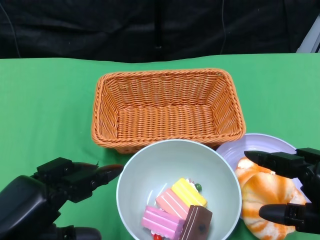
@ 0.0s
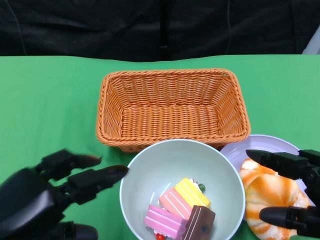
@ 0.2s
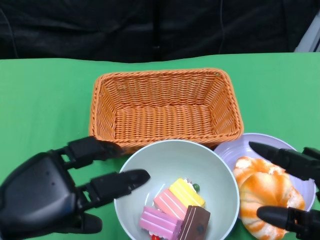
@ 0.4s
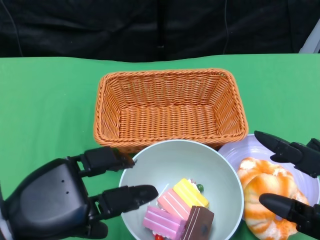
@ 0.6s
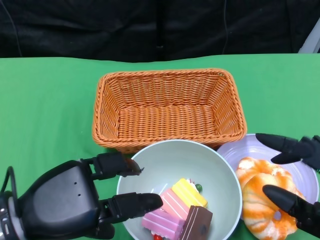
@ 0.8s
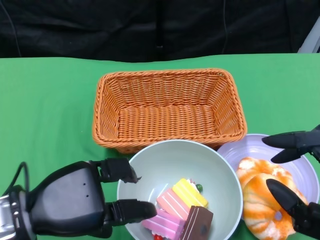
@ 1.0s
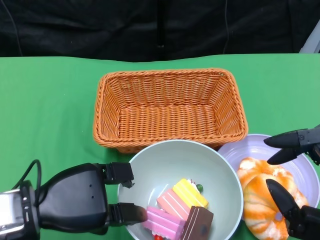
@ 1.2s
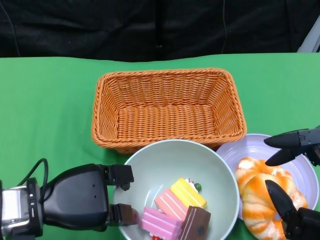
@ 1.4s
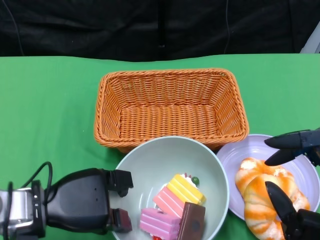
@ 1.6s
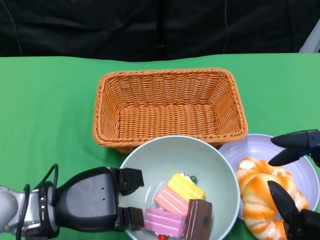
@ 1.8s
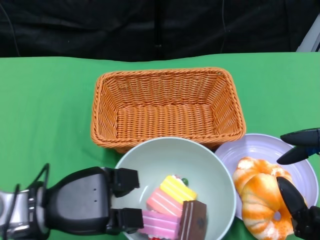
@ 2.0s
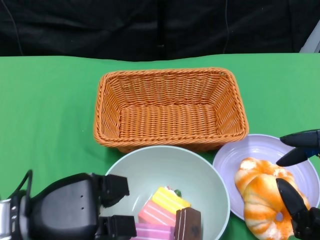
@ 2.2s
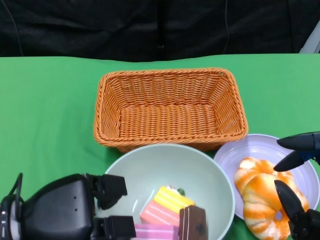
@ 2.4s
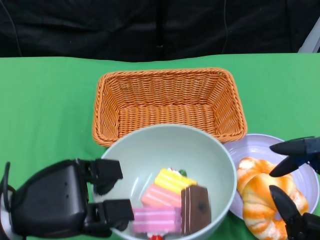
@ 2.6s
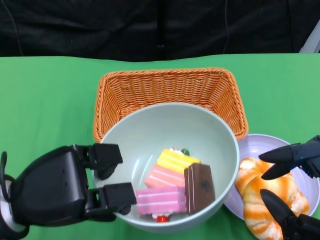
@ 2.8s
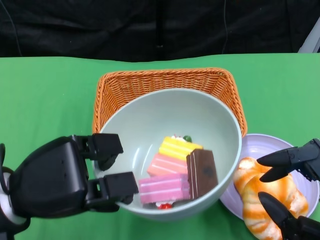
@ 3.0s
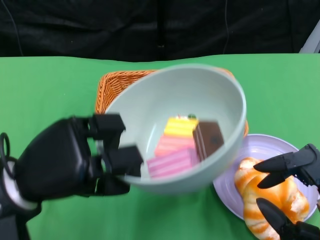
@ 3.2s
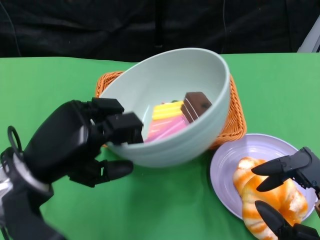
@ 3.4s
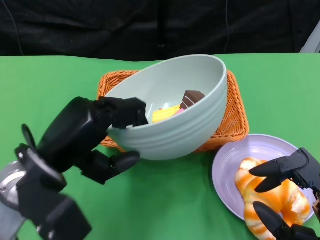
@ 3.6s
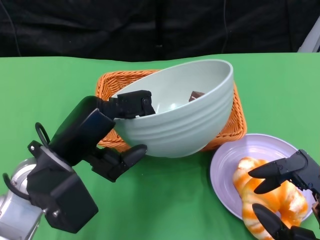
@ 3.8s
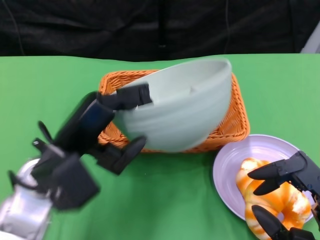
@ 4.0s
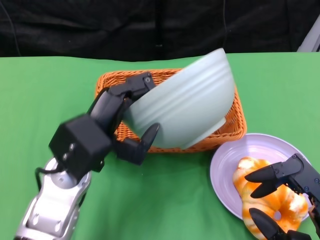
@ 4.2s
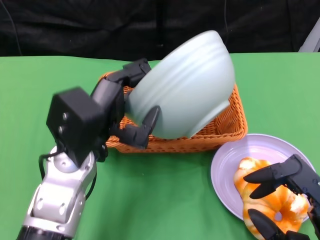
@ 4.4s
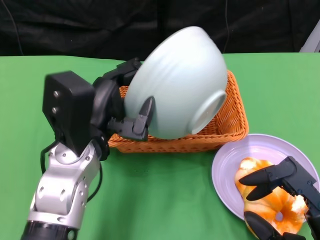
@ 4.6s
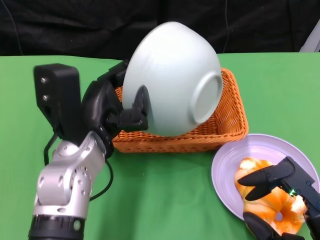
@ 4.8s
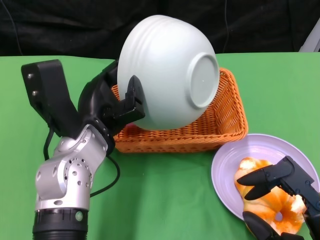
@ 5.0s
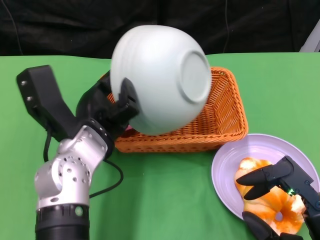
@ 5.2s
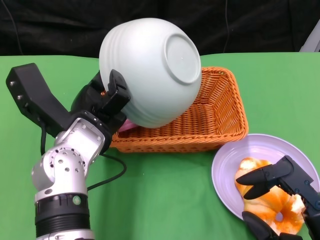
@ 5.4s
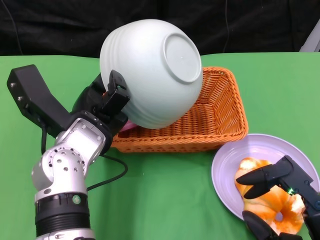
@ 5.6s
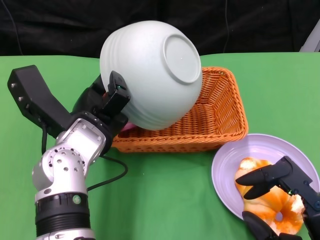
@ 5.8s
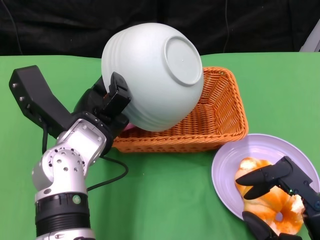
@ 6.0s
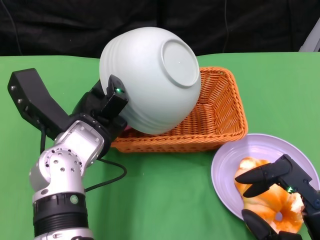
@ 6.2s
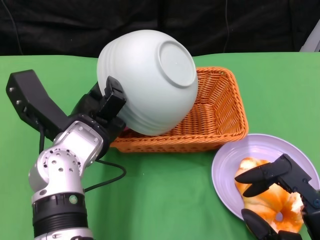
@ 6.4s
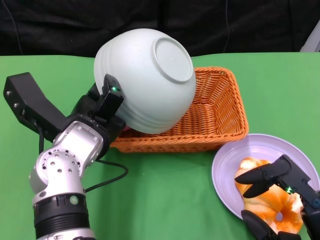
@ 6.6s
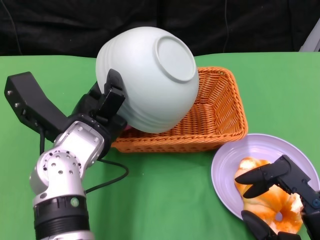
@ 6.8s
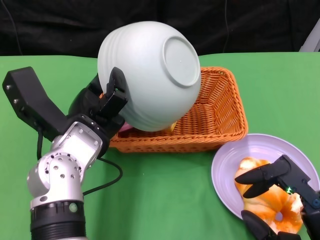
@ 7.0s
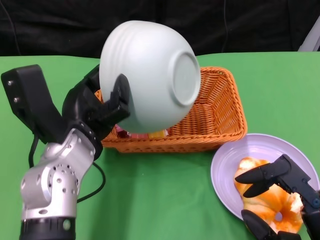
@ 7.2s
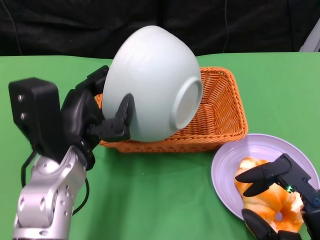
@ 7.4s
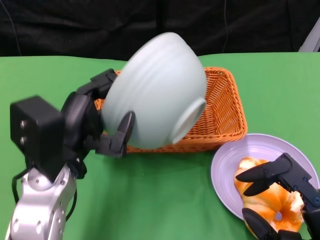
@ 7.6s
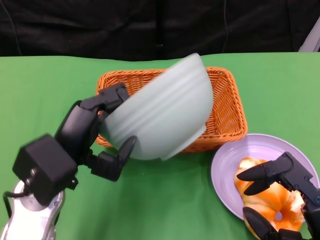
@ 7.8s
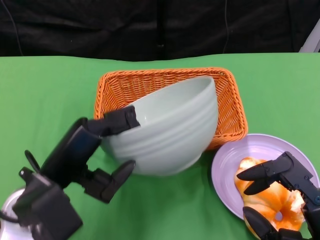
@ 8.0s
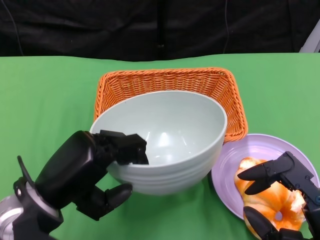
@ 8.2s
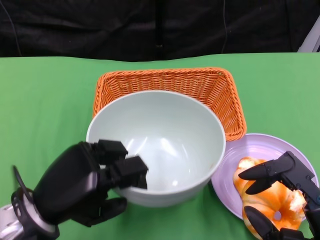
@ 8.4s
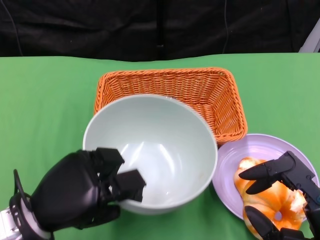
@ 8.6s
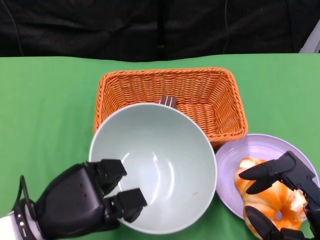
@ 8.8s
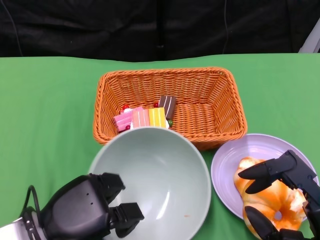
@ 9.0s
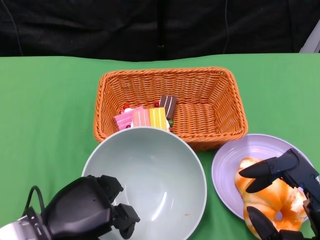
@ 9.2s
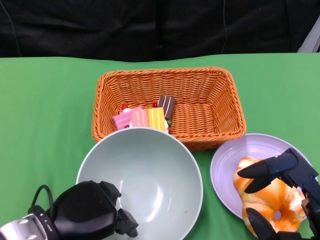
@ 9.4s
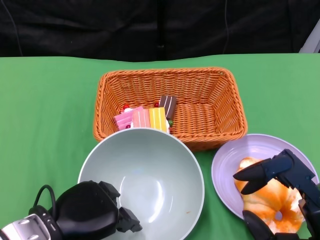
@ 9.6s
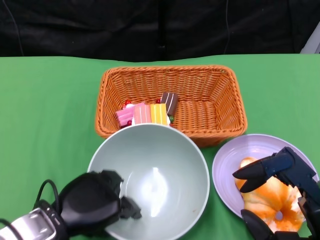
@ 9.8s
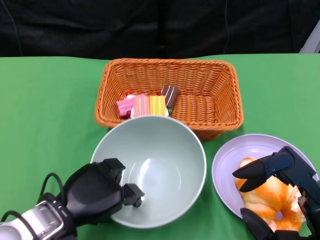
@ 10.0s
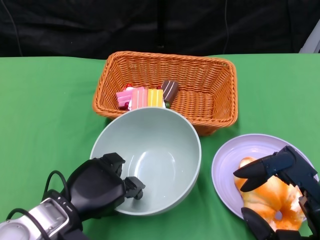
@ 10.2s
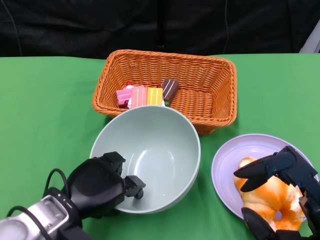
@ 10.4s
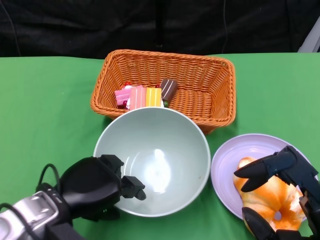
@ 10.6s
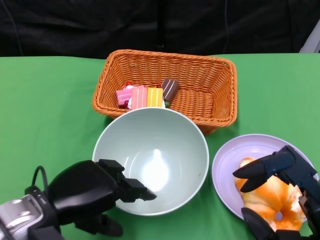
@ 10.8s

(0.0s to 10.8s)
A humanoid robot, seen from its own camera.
Step, 0.0s - 2.0s: Grasp the bowl with the left gripper.
Step, 2.2s - 7.8s: Pour the cake into the basket with the left gripper.
0.0s - 1.6s: The left hand is displaced forward and downward by approximately 10 cm.
1.6s - 3.0s: The left hand heads upward, covering about 5 cm.
3.0s - 4.6s: The left hand goes about 10 cm to the right and forward.
6.2s - 7.8s: The left hand travels backward by about 5 cm.
7.8s - 9.2s: The left hand shifts about 5 cm downward.

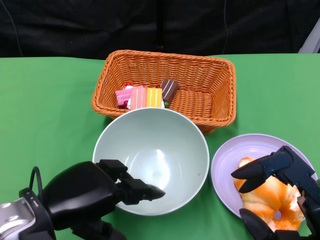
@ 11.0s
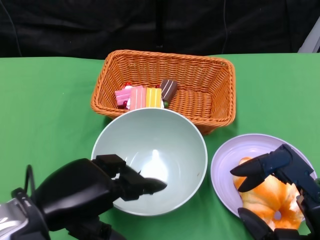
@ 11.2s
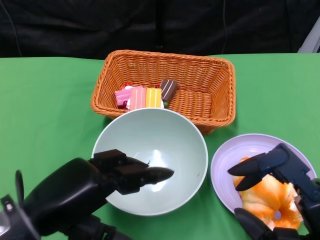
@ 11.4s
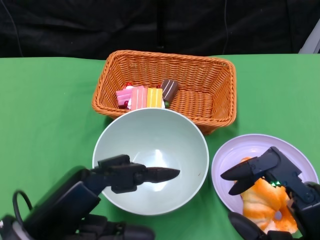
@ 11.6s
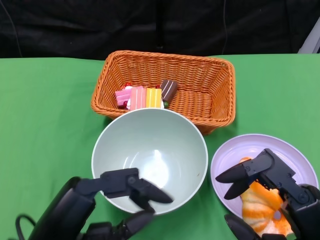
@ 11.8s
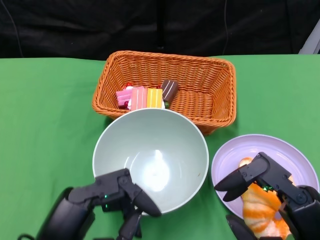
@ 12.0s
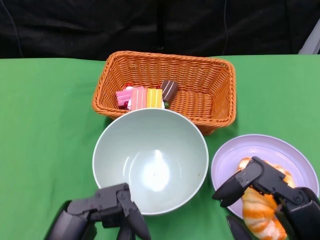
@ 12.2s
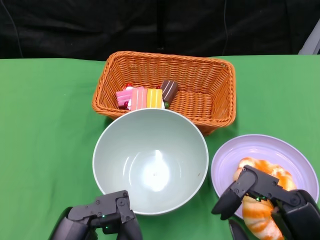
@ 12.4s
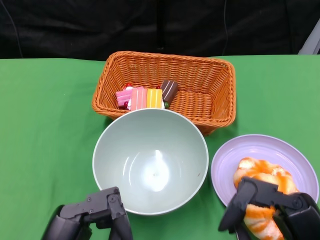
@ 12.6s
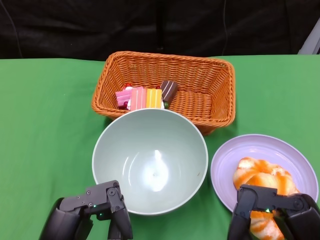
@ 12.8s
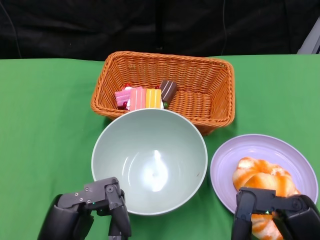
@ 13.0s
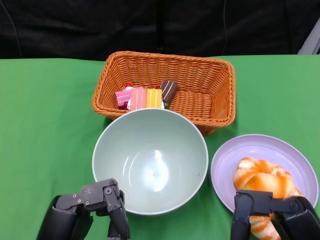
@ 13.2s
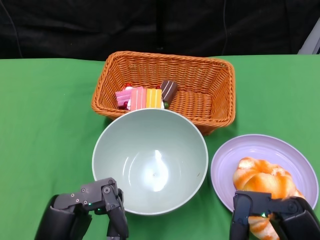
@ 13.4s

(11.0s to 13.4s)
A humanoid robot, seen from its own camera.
11.0s - 12.2s: The left hand moves backward, approximately 10 cm.
12.2s - 13.4s: The hands stay close to where they were, moving slightly.

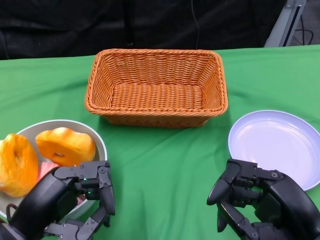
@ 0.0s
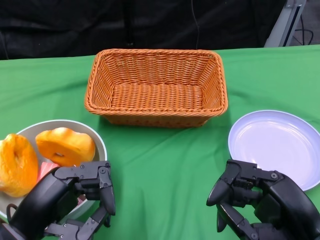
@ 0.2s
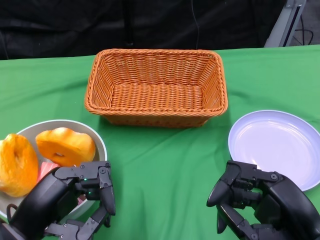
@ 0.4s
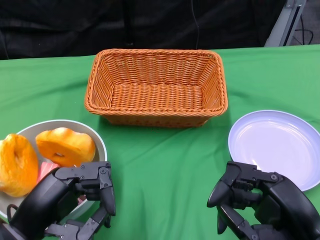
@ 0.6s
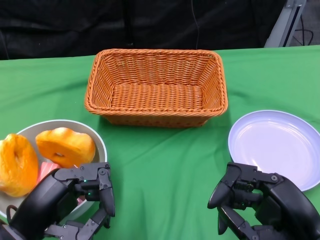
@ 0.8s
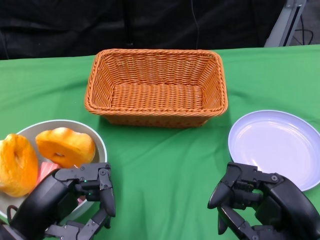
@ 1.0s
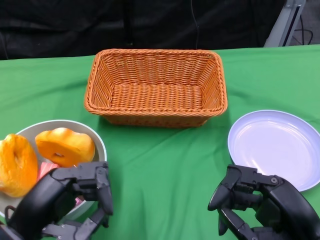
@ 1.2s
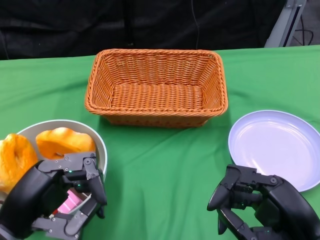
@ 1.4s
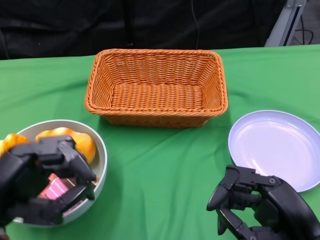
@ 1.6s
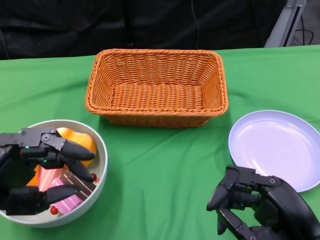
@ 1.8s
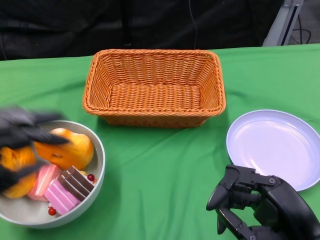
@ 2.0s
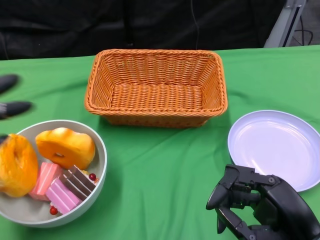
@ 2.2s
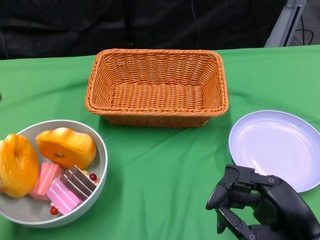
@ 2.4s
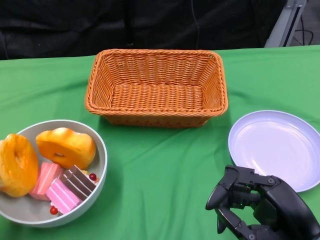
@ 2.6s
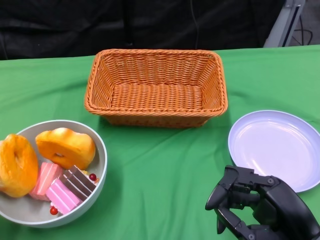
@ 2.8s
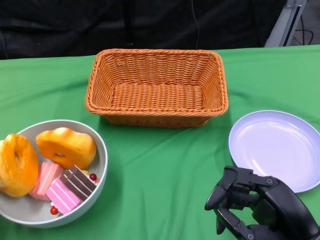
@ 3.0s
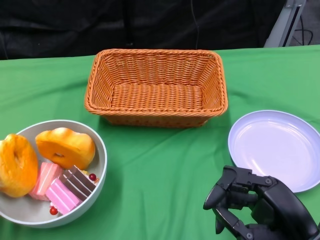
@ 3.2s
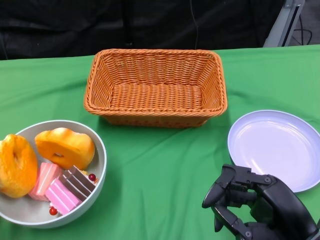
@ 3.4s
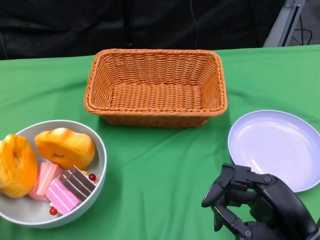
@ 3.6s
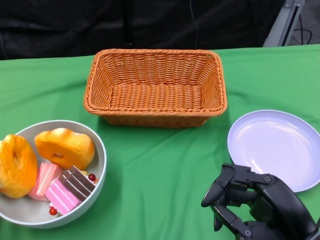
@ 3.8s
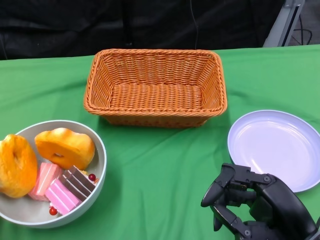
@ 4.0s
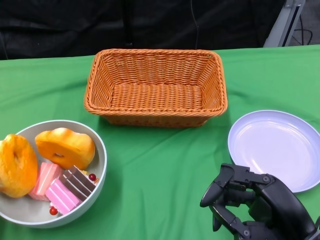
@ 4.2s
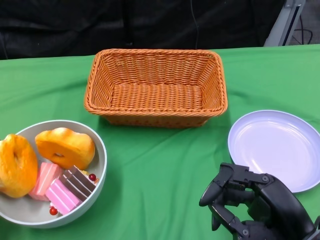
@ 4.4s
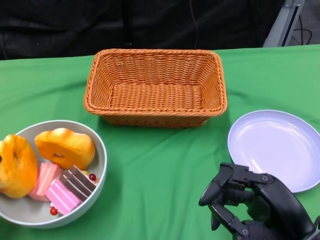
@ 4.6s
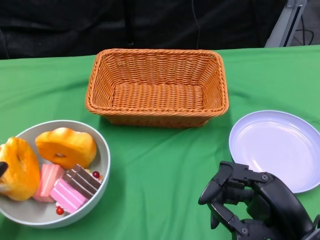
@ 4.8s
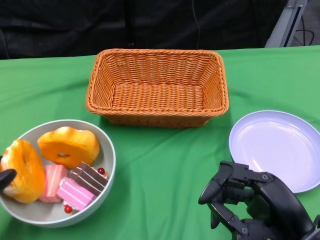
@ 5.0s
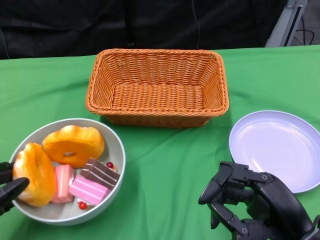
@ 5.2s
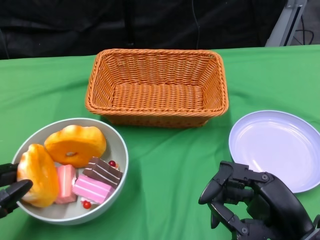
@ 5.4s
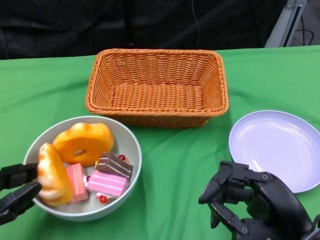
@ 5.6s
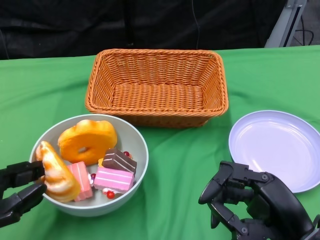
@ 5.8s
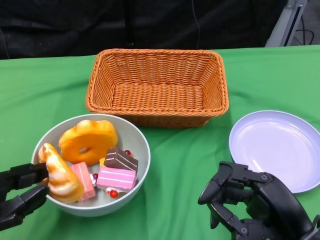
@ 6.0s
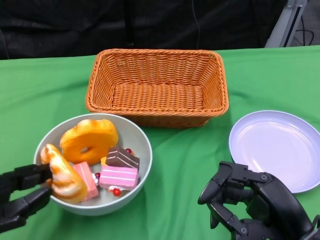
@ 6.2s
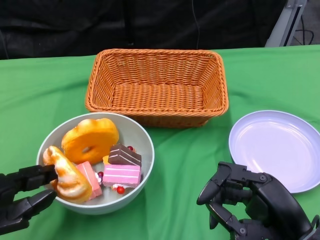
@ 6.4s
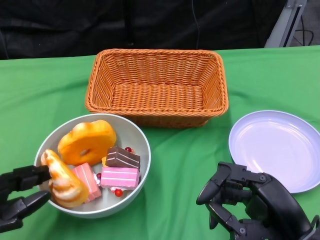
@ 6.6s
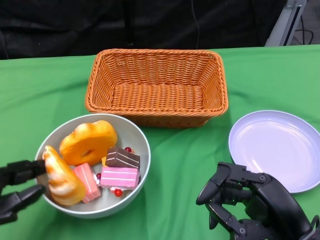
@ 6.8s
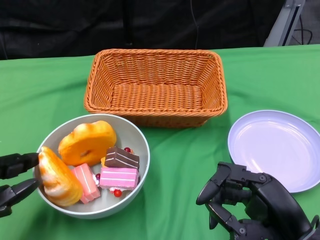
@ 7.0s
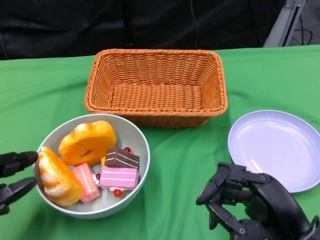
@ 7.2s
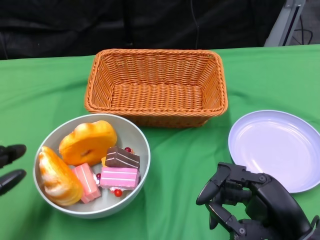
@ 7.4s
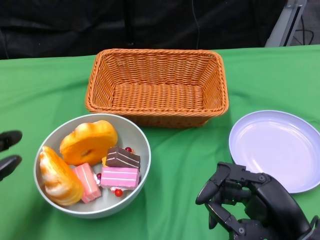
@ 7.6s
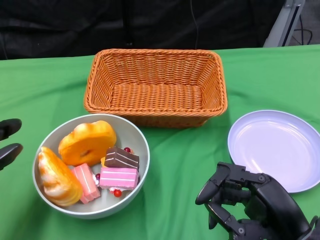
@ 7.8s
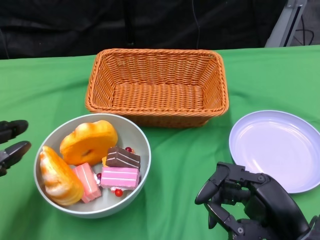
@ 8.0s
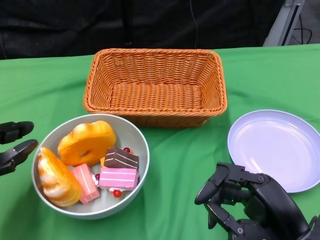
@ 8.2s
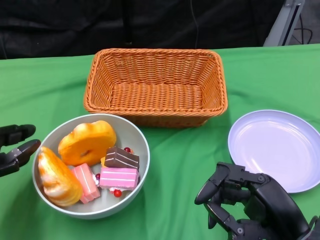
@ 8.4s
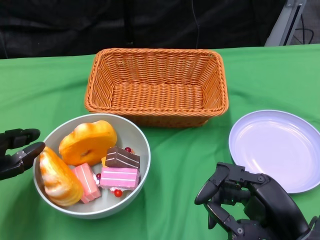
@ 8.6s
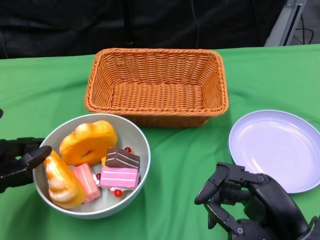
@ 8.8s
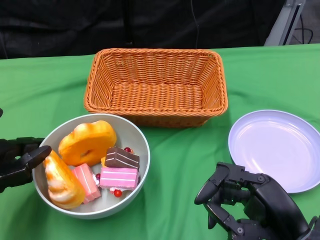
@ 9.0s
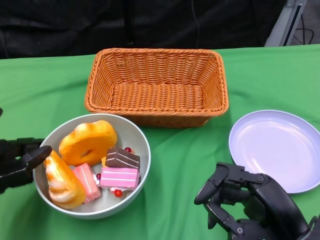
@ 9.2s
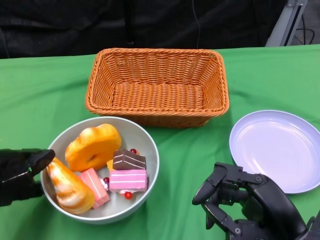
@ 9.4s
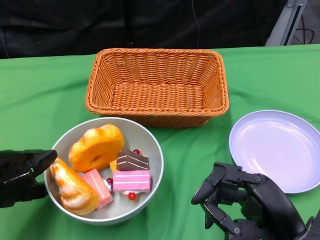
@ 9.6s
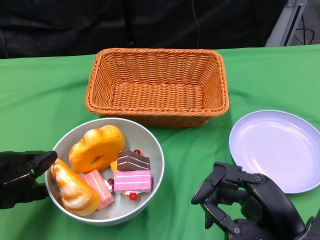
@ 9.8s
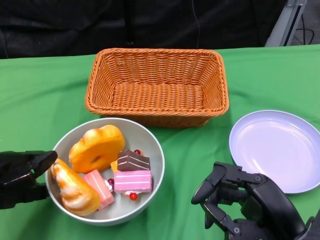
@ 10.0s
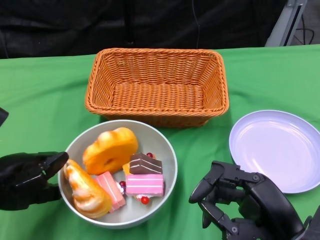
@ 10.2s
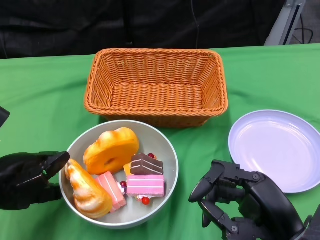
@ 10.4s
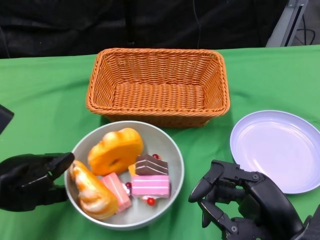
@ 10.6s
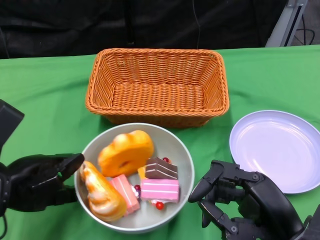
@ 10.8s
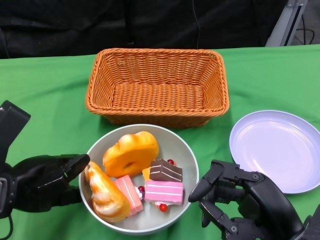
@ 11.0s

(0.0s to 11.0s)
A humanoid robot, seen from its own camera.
1.6s - 3.2s: The left hand travels to the left by approximately 10 cm.
4.8s - 6.2s: The left hand ends up approximately 5 cm from where it was.
6.2s - 7.8s: The hands stay close to where they were, moving slightly.
7.8s - 9.4s: The left hand heads forward, covering roughly 5 cm.
